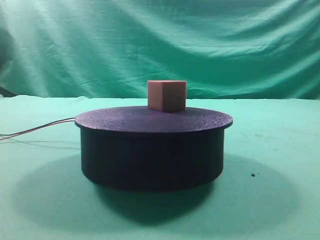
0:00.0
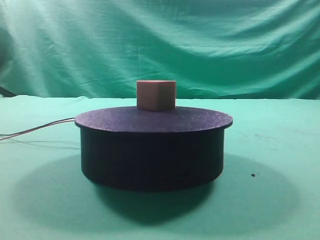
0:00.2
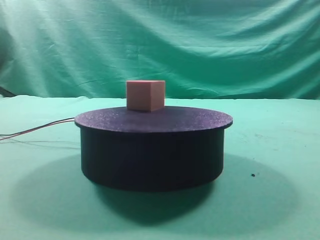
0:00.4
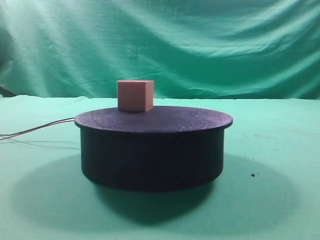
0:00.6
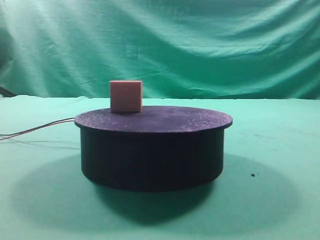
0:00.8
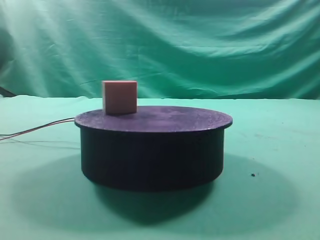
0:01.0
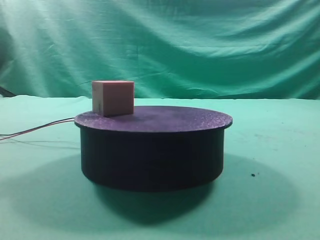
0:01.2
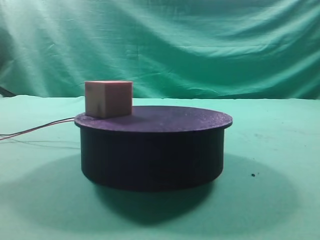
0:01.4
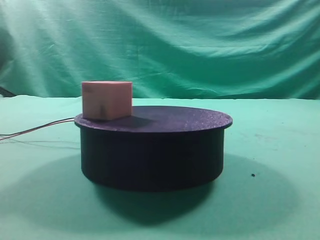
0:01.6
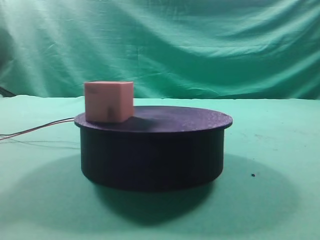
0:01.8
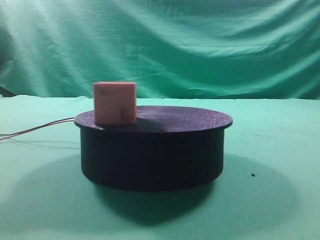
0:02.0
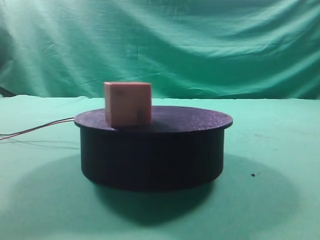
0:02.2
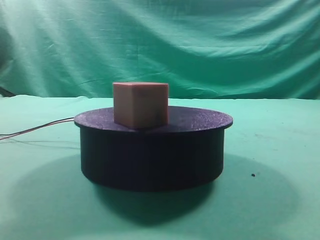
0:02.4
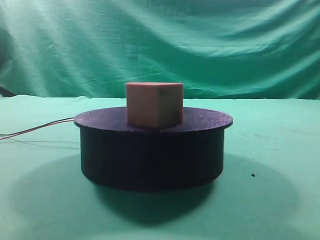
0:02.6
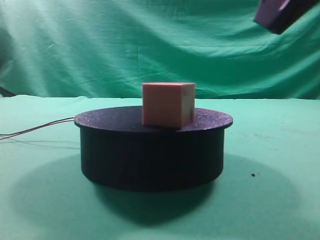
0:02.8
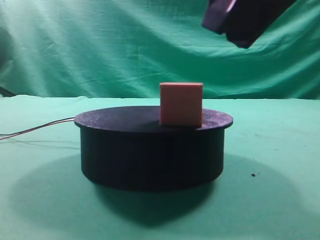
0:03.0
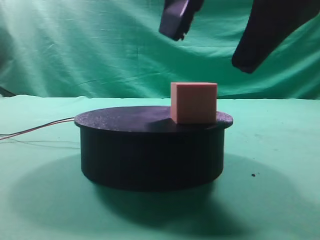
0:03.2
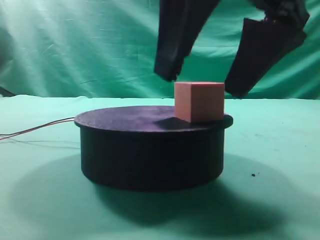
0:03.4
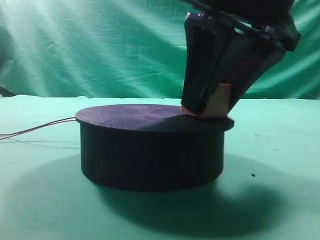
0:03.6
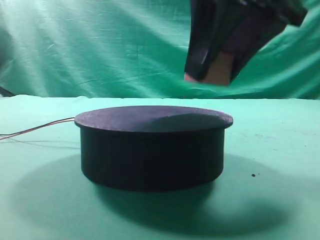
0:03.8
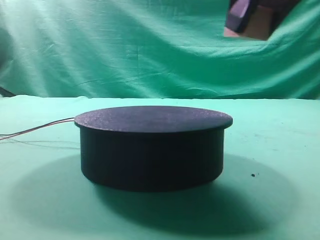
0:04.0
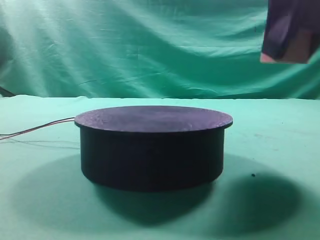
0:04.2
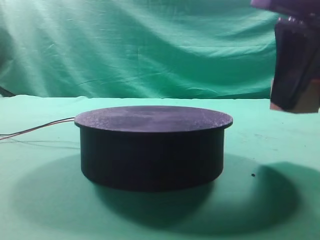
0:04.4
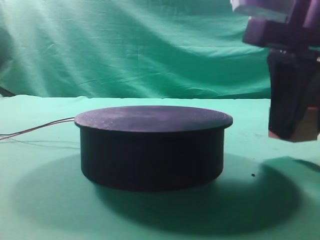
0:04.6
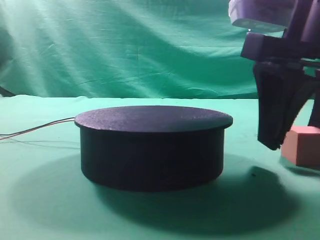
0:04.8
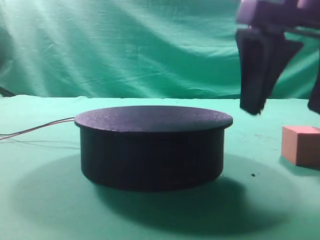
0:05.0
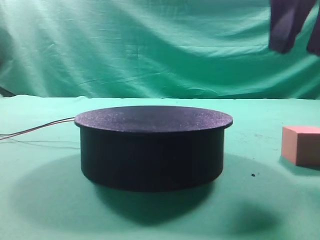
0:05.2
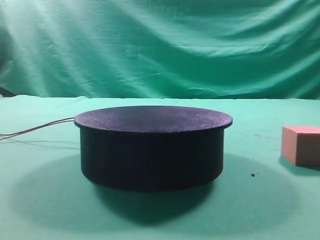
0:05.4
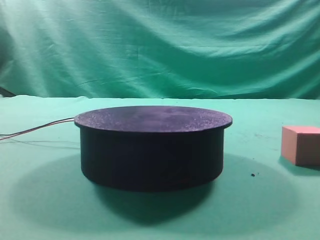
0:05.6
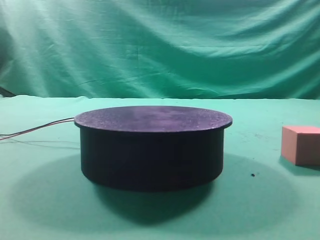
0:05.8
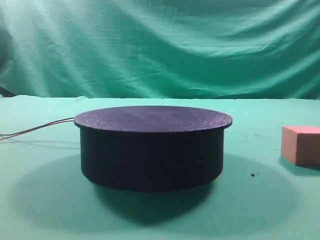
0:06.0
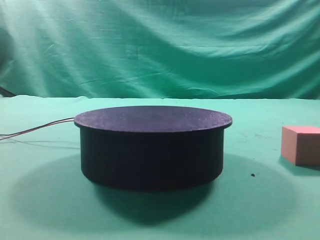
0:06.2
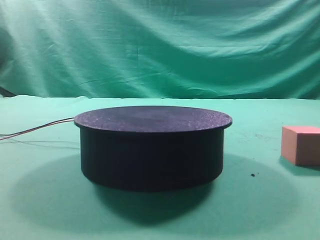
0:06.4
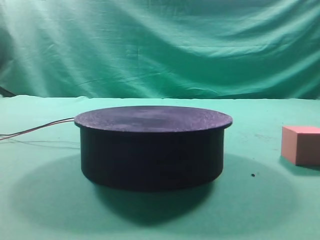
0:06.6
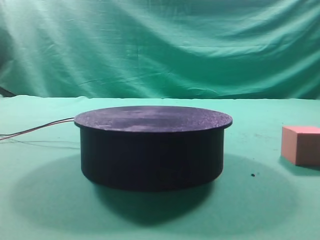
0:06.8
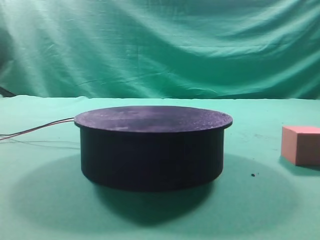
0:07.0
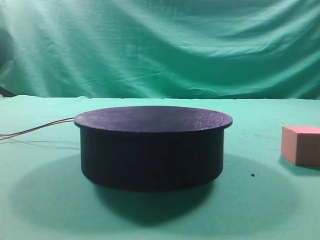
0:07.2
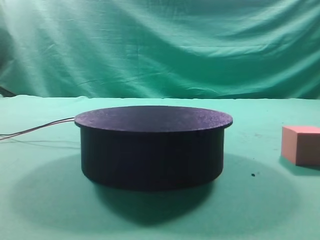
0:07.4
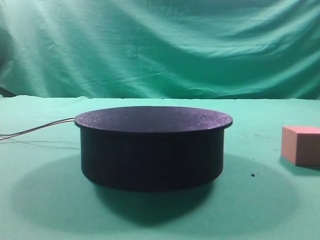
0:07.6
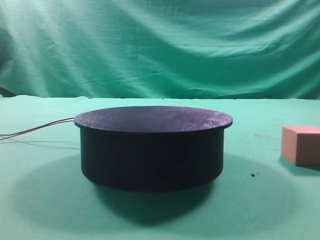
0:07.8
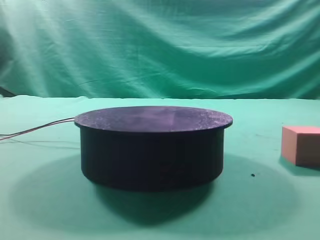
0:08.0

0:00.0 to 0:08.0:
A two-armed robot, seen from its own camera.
Task of the whole recording: grasp the rotating cube-shaped block on the turntable and place it on the table.
Step, 0:00.0 to 0:03.6: Grasp the rotating cube-shaped block on the turntable.
Step, 0:03.8 to 0:04.8: Place the cube on the desk.
